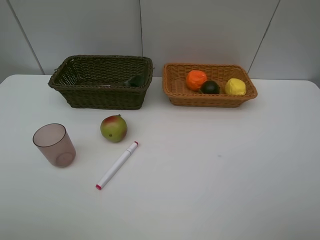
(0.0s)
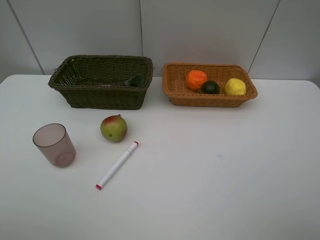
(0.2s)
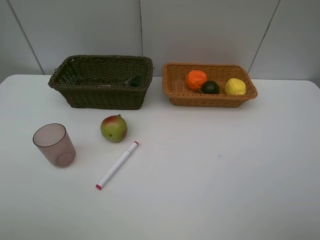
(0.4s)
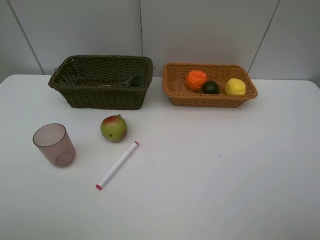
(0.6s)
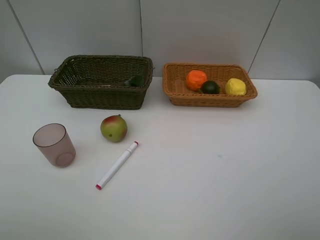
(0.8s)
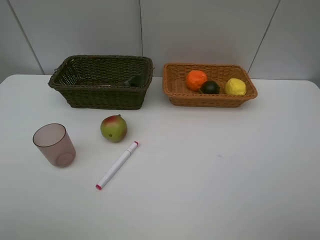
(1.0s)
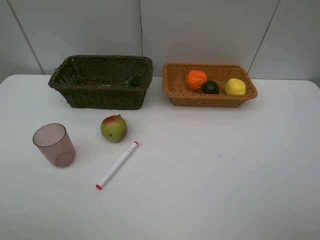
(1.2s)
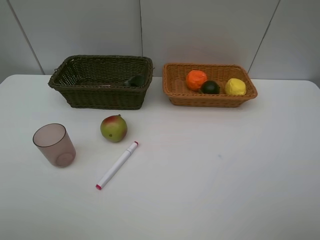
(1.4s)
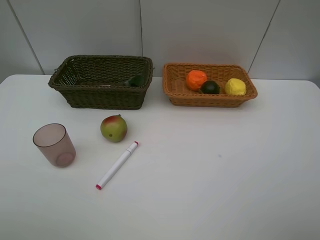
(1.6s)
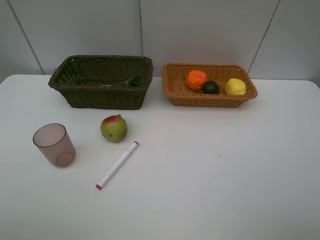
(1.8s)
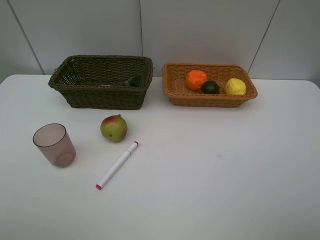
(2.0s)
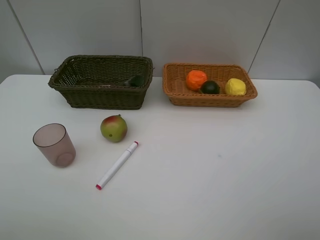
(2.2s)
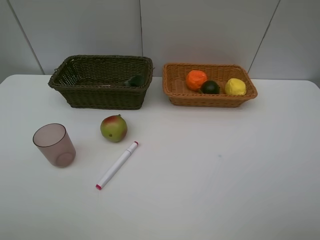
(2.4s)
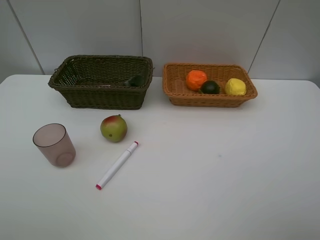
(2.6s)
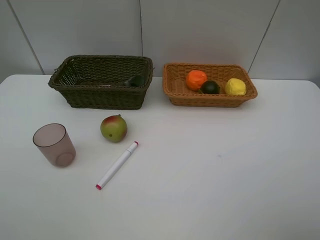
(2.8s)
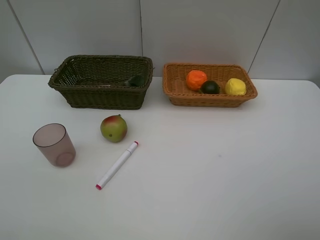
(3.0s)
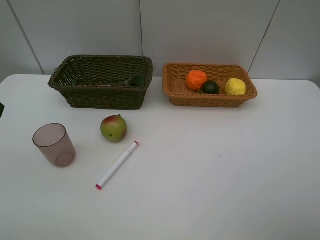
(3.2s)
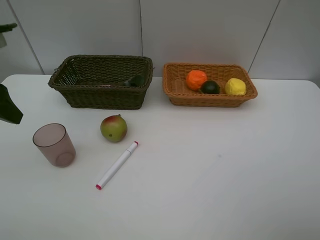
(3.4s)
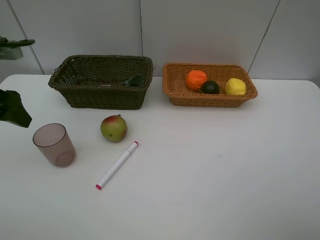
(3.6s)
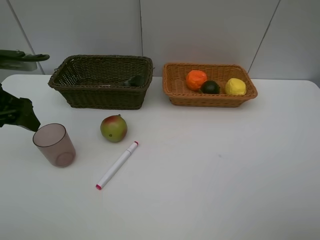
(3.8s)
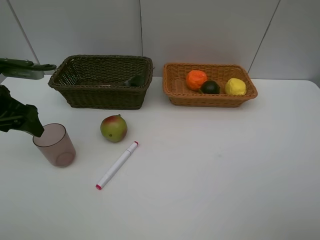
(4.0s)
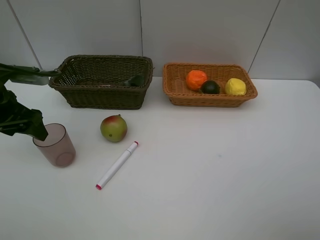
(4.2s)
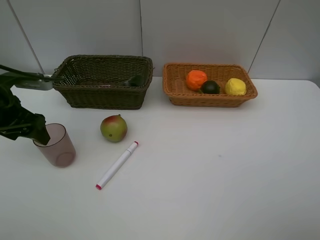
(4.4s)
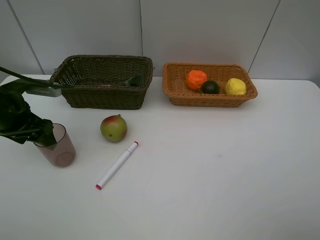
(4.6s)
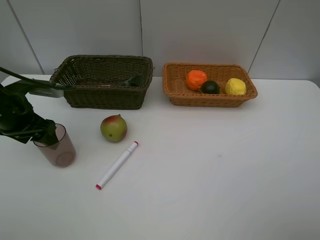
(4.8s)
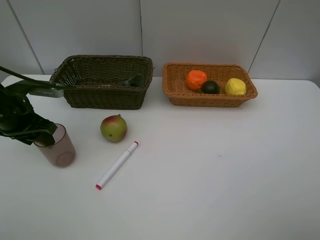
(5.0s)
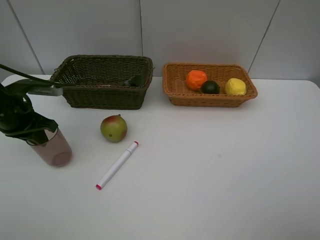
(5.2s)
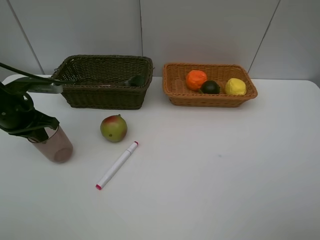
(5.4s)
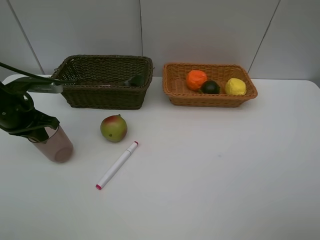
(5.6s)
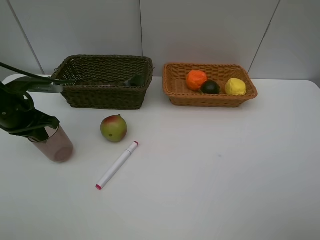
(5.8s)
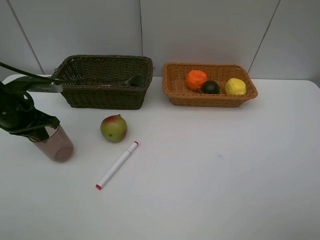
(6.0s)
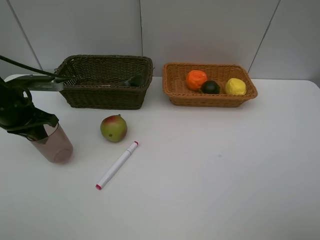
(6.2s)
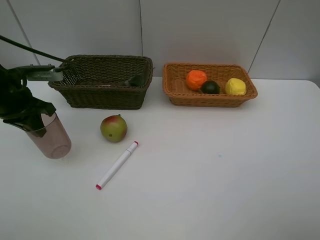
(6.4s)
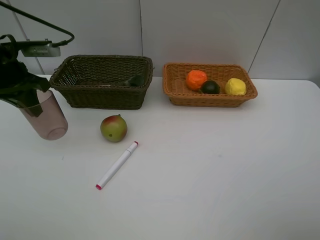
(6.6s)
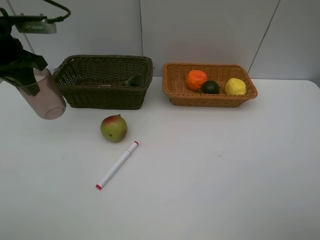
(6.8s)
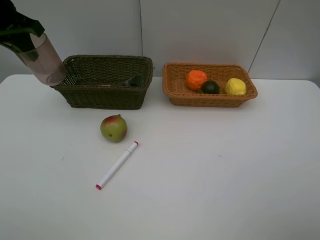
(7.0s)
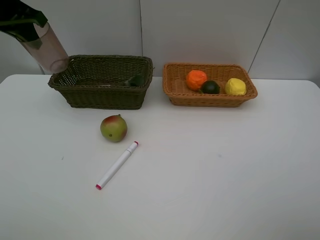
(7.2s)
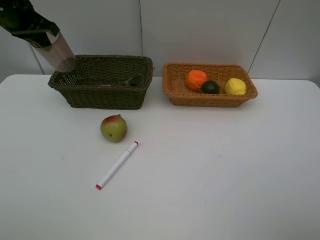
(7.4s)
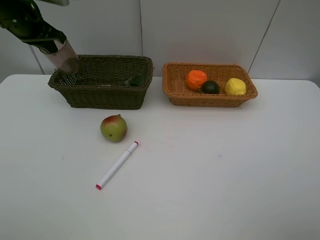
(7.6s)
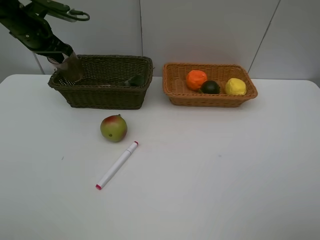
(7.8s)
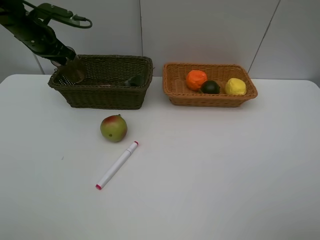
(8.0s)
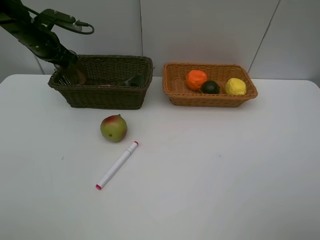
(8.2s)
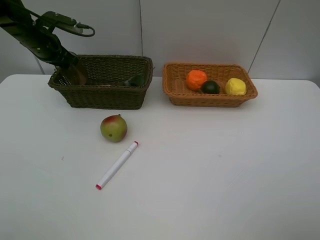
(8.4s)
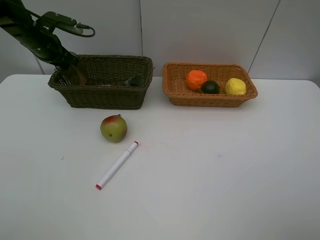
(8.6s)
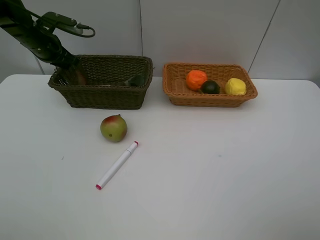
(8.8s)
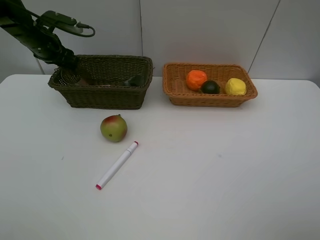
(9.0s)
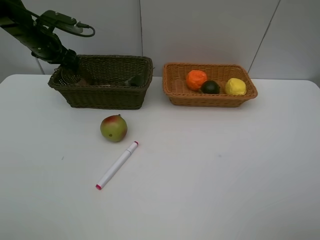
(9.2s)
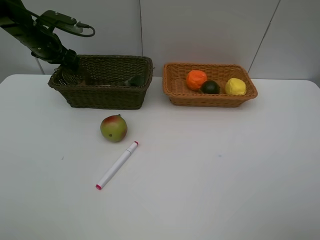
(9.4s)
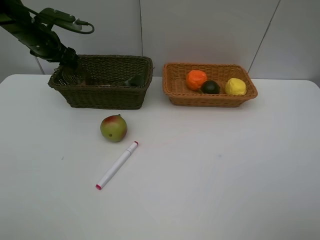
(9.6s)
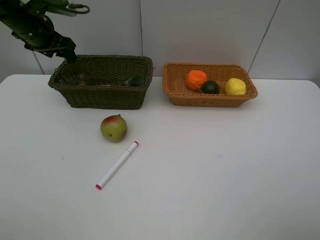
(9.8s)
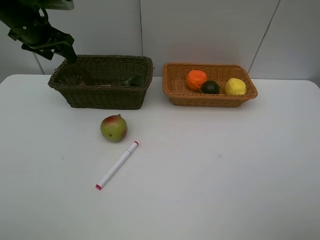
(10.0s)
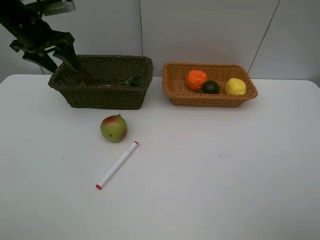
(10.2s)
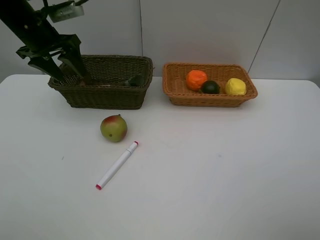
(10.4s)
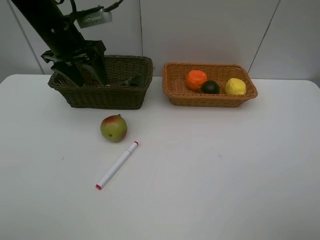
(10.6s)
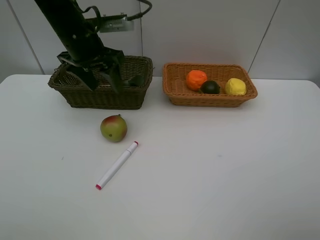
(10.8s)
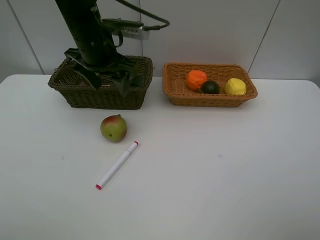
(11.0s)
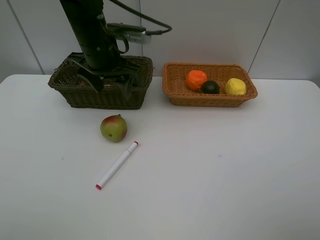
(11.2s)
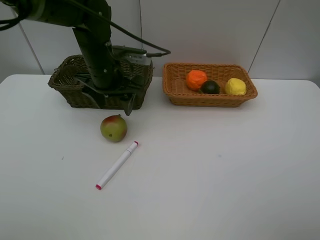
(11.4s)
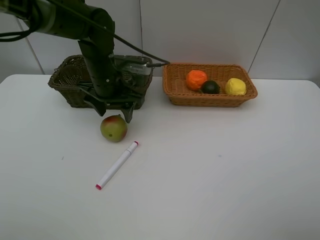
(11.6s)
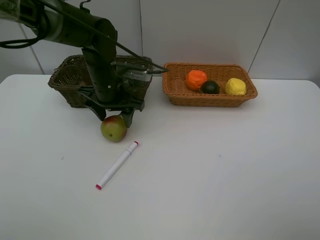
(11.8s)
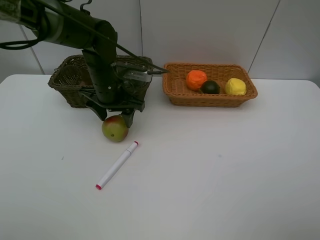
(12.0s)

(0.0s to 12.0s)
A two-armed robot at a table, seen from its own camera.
Task of the whole recording: Place multiple objects separately in different baskets.
Step, 0.0s - 6.4s: Pick up the red cup with left gripper.
Step, 6.6s - 9.8s: Place the red cup in the dark basket with left gripper.
0.0s - 1.6s: Neither gripper changes place.
3.0s - 4.4s: The left gripper is displaced downward and forward by about 20 cm.
4.4s - 6.0s: The left gripper closes its fingers.
6.0s - 7.6s: The left gripper travels forward and upward by roughly 20 cm.
7.6s - 9.0s: The left gripper goes approximately 5 cm downward, and opens up.
9.0s - 10.4s: The left gripper moves backward and upward, some 10 cm.
10.4s - 12.0s: The left gripper heads to the right and downward, covering some 15 cm.

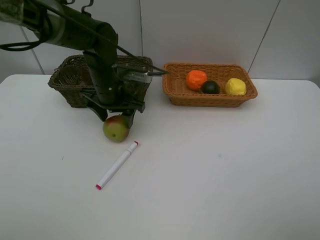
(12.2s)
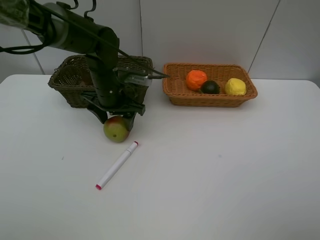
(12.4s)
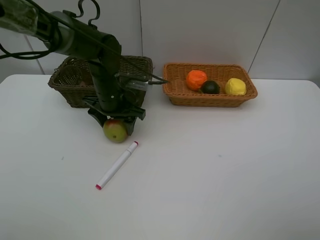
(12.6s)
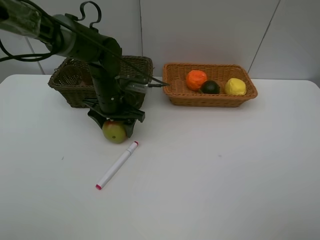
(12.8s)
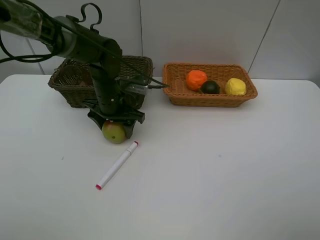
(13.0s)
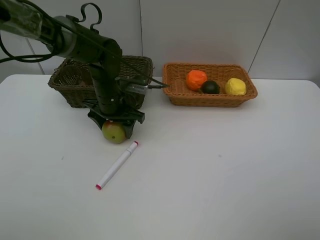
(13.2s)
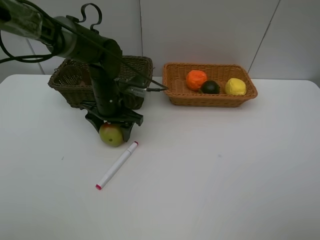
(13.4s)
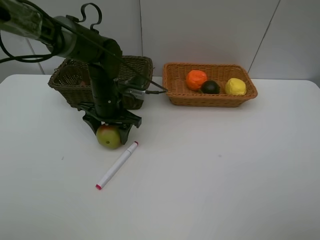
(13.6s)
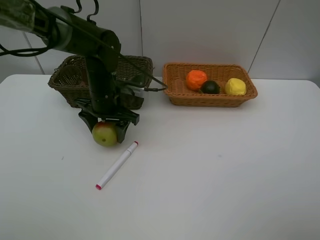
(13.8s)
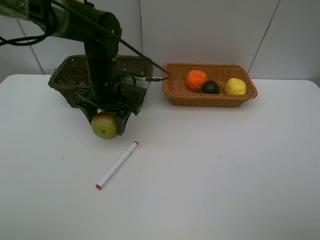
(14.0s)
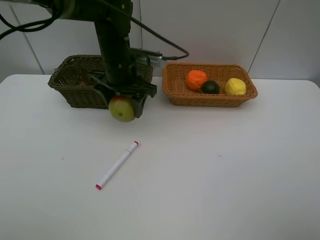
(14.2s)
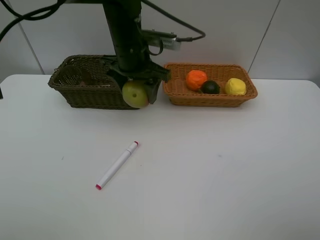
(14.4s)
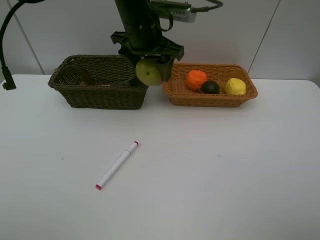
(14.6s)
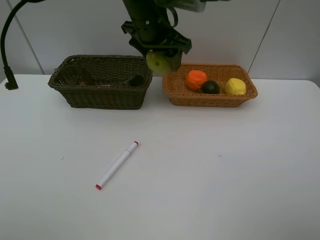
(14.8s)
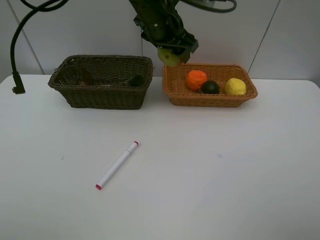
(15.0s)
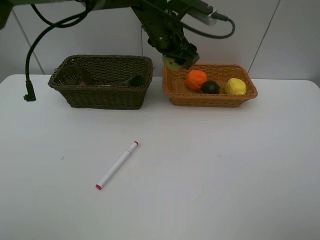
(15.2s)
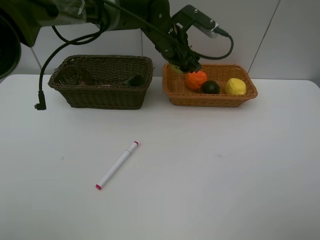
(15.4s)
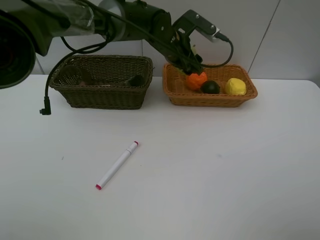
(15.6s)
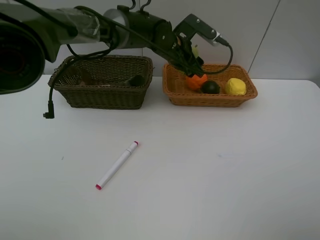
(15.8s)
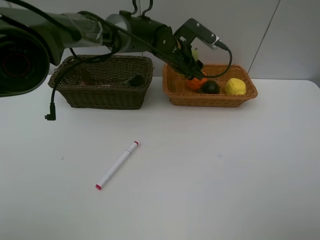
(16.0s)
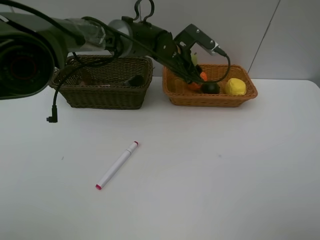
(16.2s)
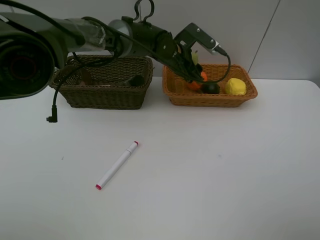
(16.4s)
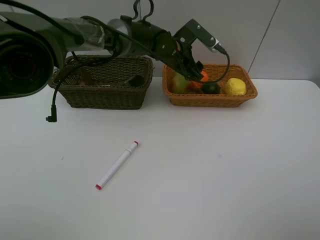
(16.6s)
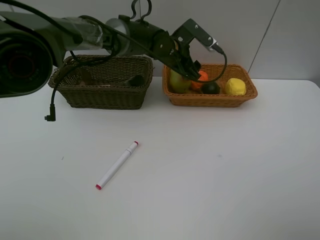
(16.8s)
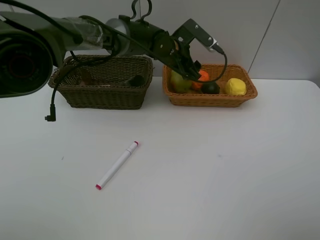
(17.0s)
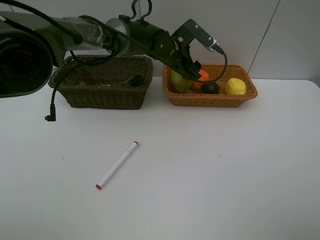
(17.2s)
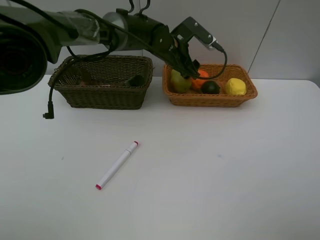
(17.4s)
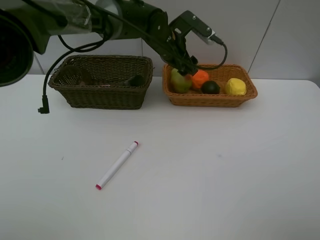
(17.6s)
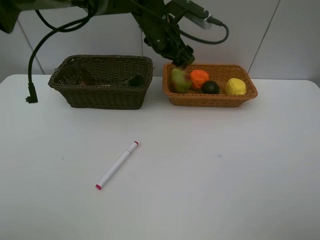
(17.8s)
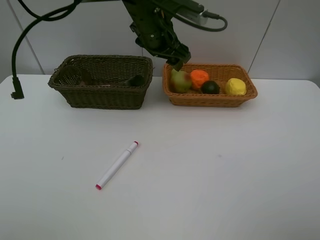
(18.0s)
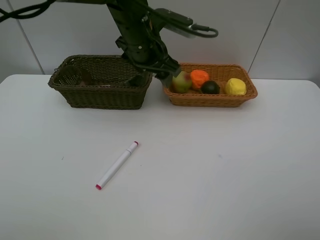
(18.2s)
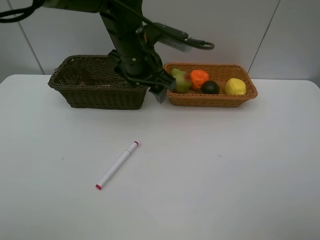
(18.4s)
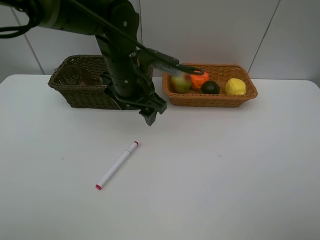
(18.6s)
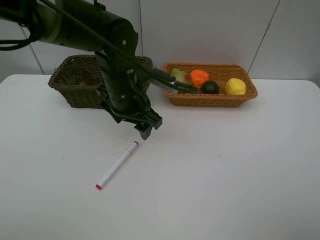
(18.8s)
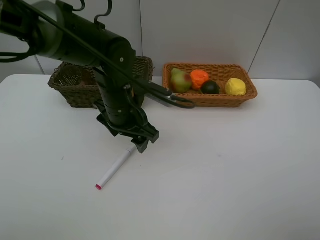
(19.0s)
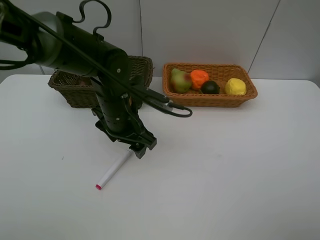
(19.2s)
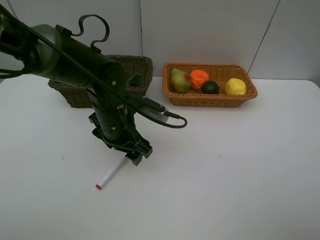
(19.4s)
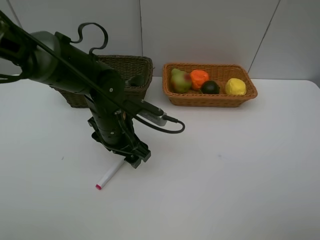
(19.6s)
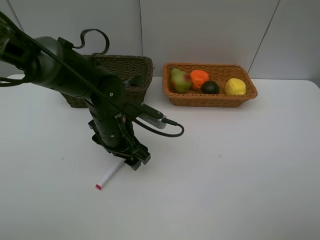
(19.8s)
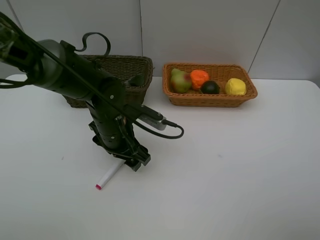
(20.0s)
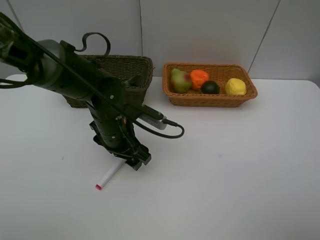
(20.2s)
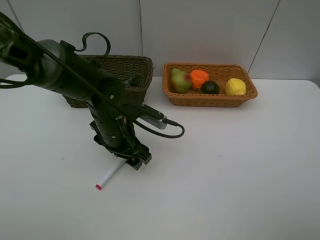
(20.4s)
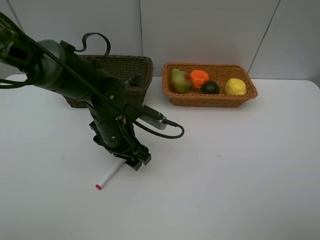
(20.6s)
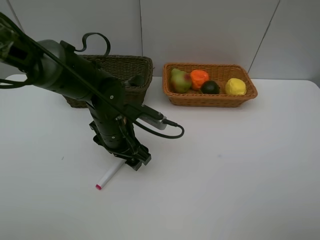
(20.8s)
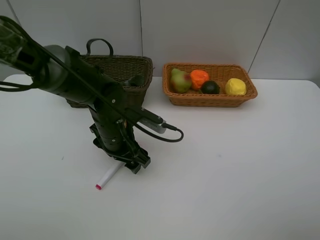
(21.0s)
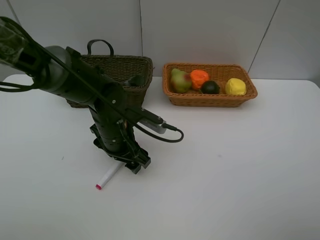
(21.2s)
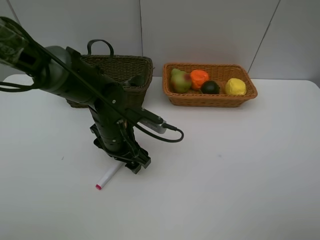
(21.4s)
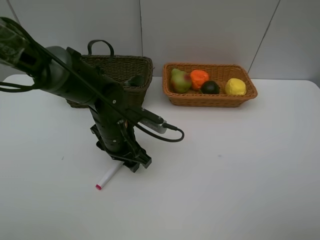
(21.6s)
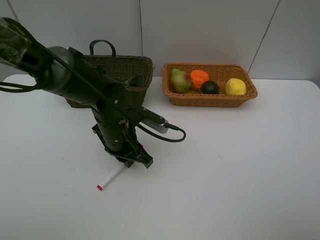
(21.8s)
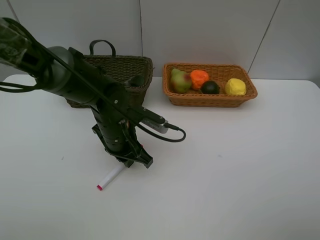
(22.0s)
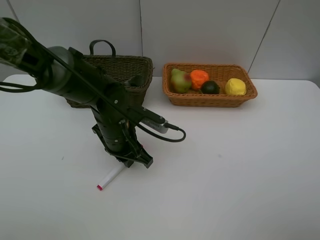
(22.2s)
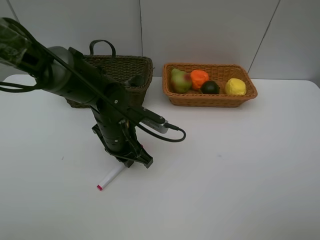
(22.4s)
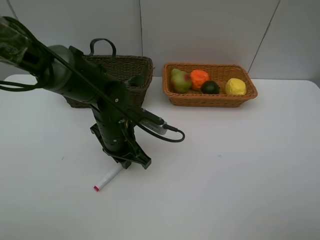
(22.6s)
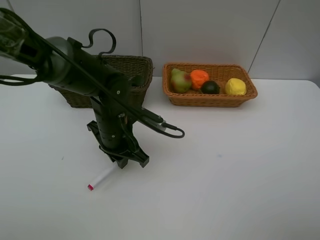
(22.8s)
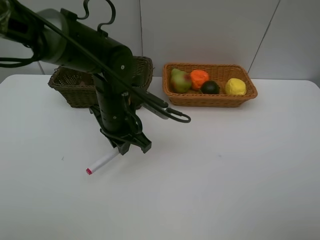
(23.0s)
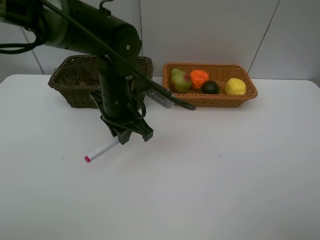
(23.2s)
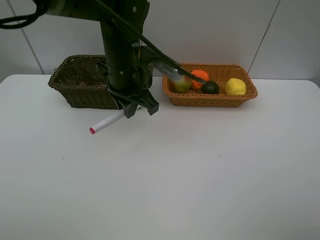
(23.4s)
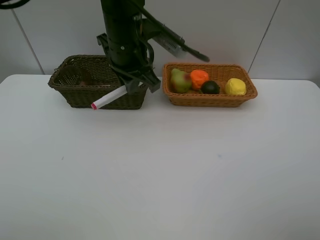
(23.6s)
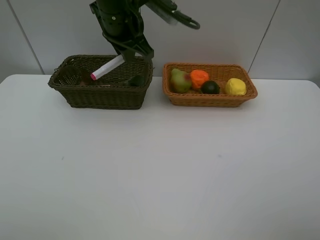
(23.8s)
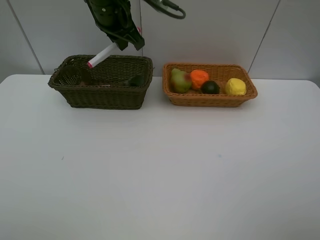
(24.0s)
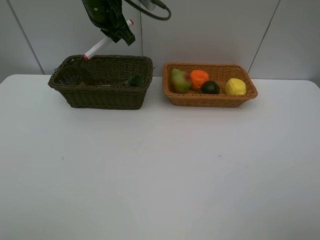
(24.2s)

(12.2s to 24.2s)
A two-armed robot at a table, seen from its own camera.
Task of the whole recording: Place multiple objects separately in different baskets.
Step, 14.2s - 17.8s: Place the pear in the light basket with left gripper.
Step, 18.0s - 22.8s: Pick up the red marker with left gripper.
12.2s - 13.8s: There are only small adjustments of the grippers.
13.8s - 15.2s: The left gripper travels to the right, upward and forward by approximately 15 cm.
15.2s - 16.6s: The left gripper goes roughly 5 cm downward.
16.6s - 18.2s: The left gripper goes roughly 15 cm backward, upward and to the left.
18.2s - 19.8s: The left gripper is displaced downward, backward and to the left by approximately 15 cm.
19.8s - 21.2s: Both grippers stay put.
21.2s - 22.6s: The left gripper closes up.
22.6s - 24.2s: The left gripper moves upward and forward, some 25 cm.
